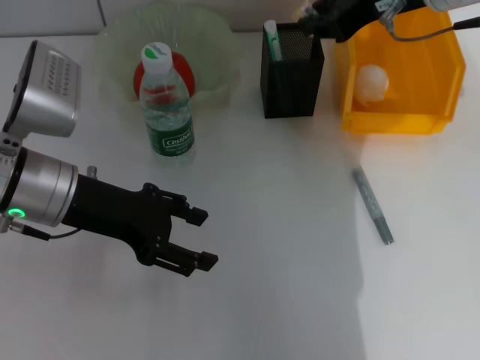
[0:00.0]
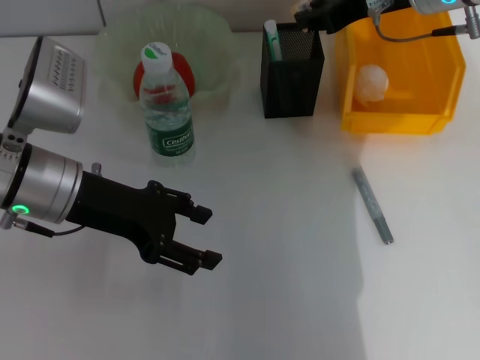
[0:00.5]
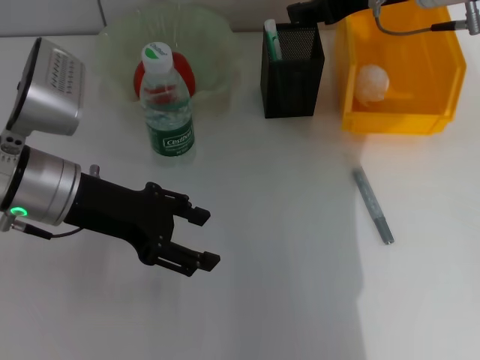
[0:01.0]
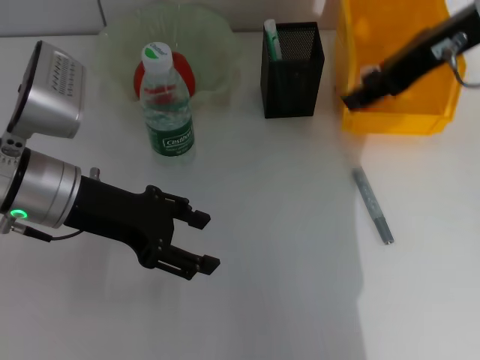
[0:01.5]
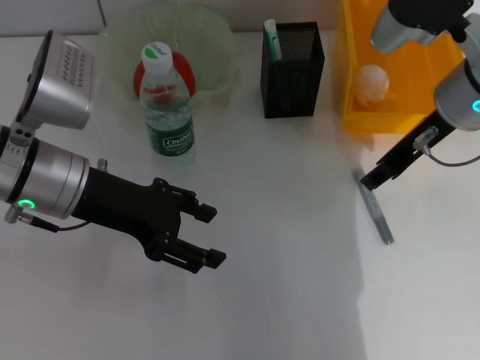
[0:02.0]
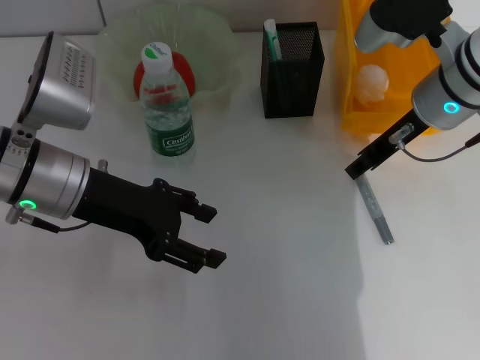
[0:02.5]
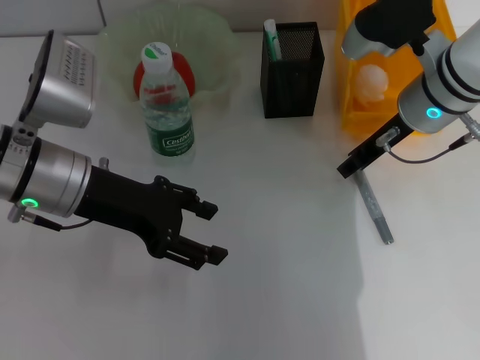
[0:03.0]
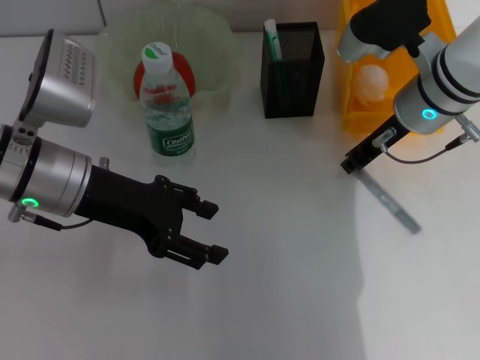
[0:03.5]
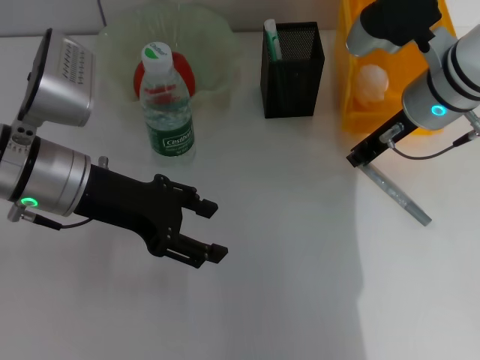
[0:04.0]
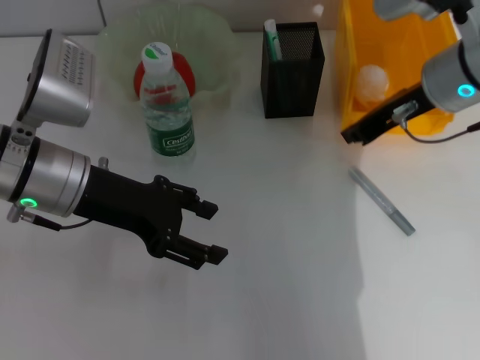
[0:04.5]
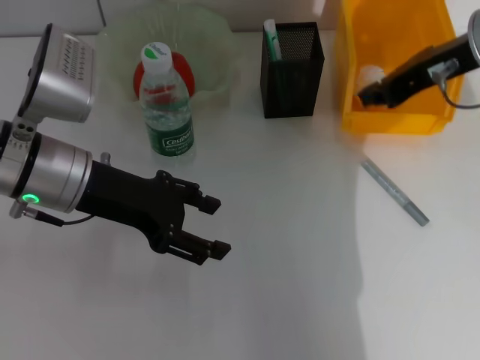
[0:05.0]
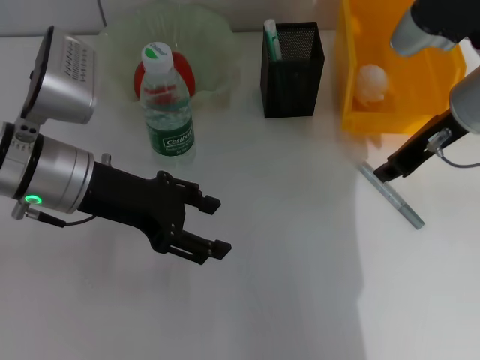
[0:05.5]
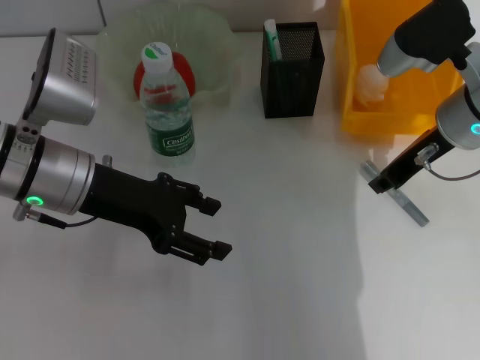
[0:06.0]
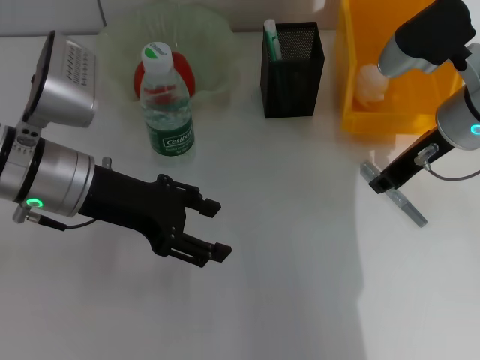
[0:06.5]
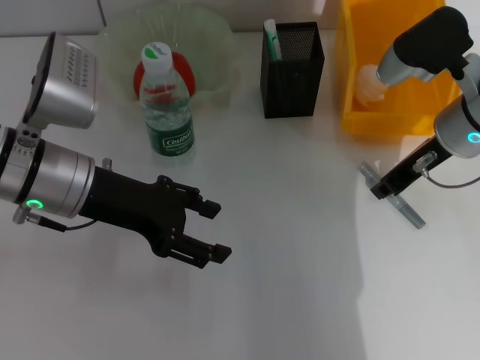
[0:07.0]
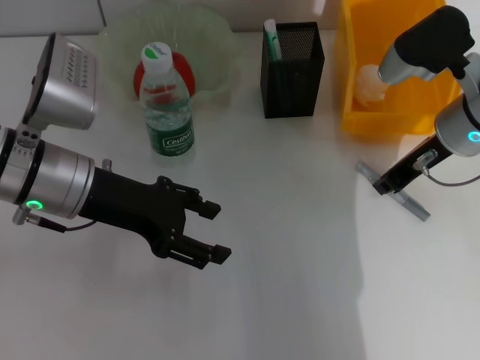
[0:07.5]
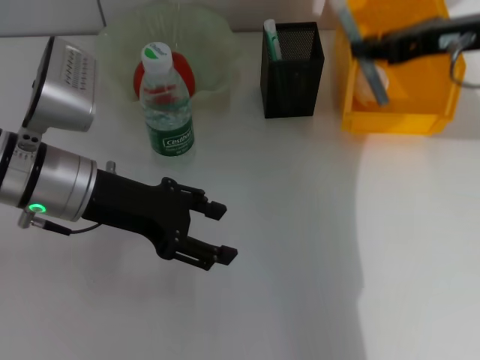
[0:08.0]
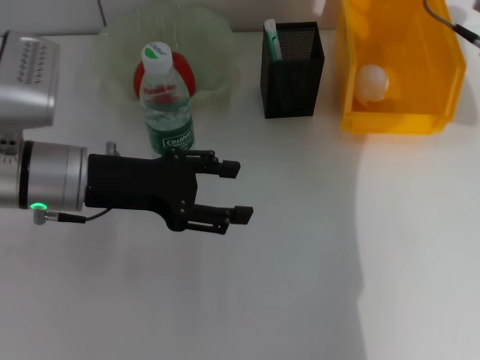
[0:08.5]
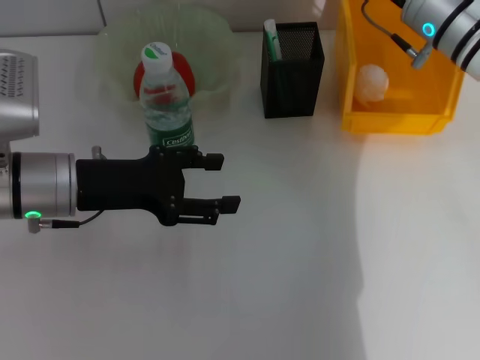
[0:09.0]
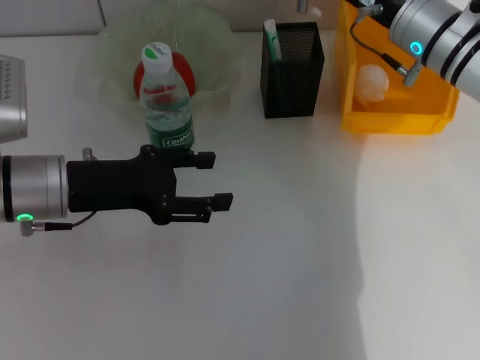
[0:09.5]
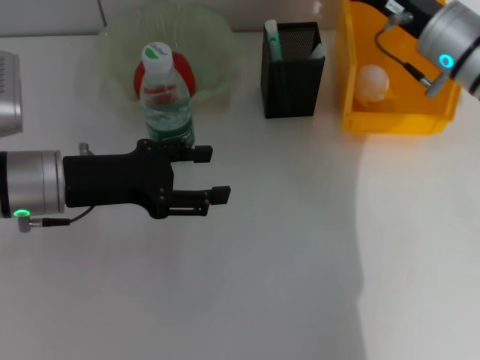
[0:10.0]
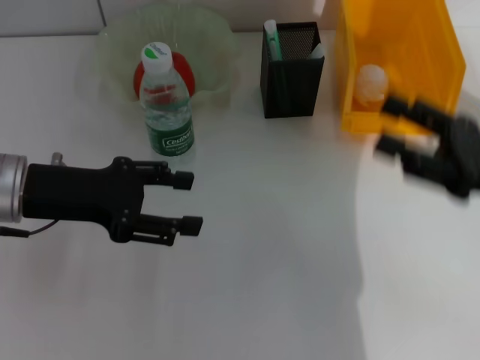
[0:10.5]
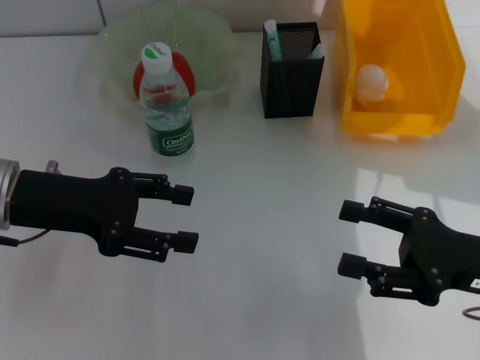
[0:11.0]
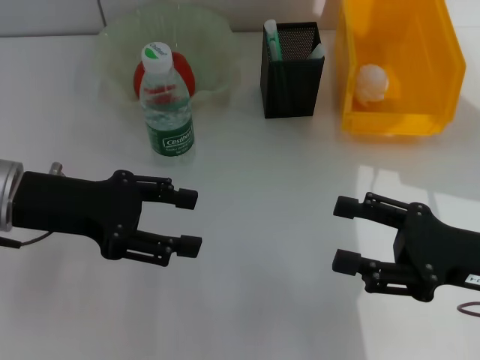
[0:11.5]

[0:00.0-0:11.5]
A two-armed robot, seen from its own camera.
Step, 0:01.0 to 0:07.0: Grab the gray glue with the right hand.
Step, 0:07.5 to 0:09.5: Place the gray glue into the pen holder with the right hand.
0:00.0 to 0:02.0: The right gripper heads downward, covering roughly 10 cm.
0:02.0 to 0:04.0: The right gripper closes up.
0:04.0 to 0:06.0: The right gripper goes upward and returns, approximately 10 cm each way.
0:06.0 to 0:07.5: The grippers stay close to where they were, moving slightly.
0:07.5 to 0:09.5: The right gripper moves some 10 cm upward and comes back.
0:09.5 to 0:11.5: The right gripper heads backward, covering approximately 20 cm, and opens up.

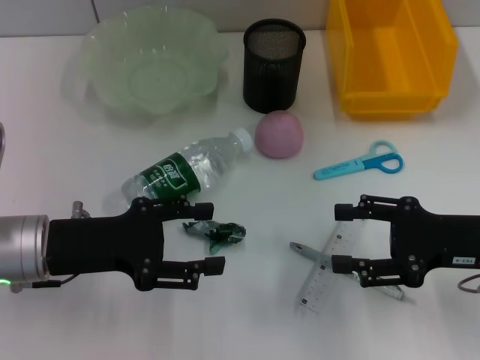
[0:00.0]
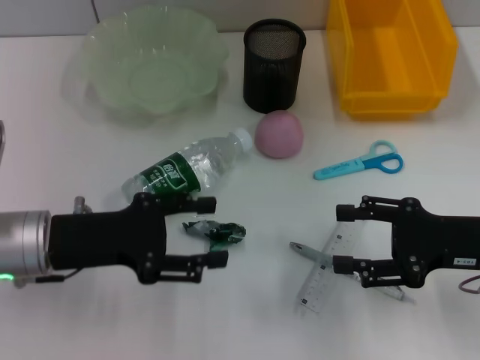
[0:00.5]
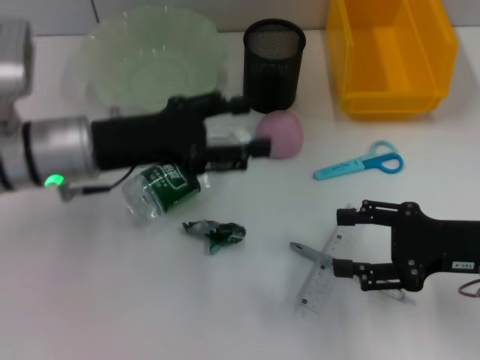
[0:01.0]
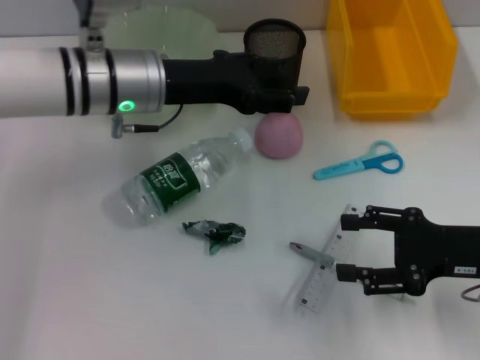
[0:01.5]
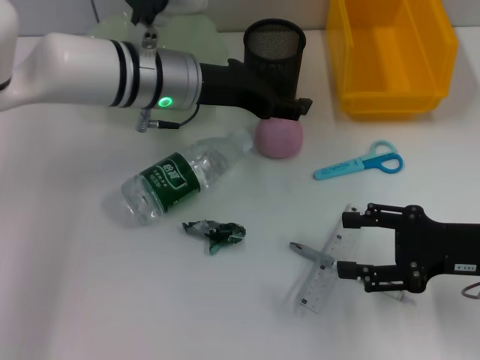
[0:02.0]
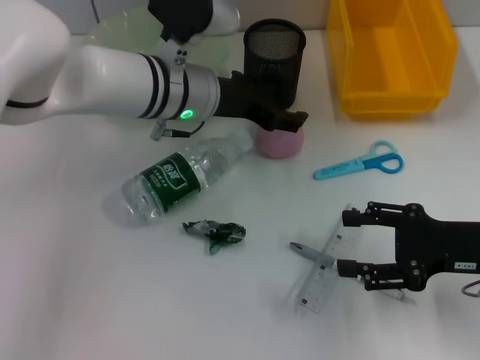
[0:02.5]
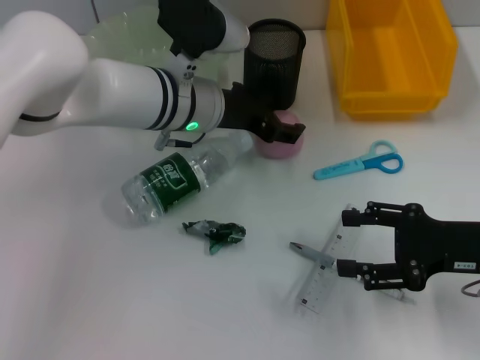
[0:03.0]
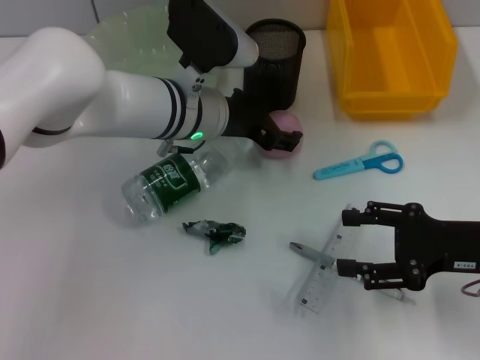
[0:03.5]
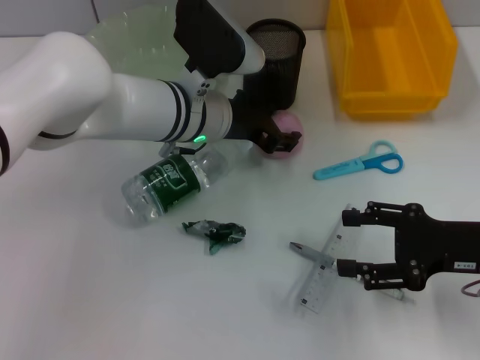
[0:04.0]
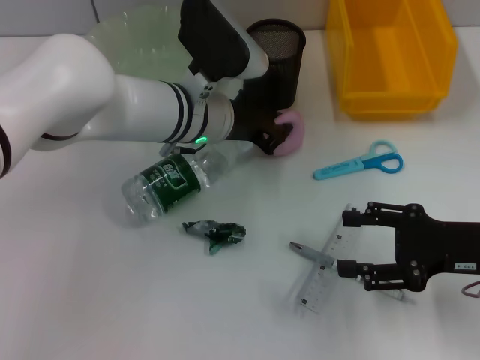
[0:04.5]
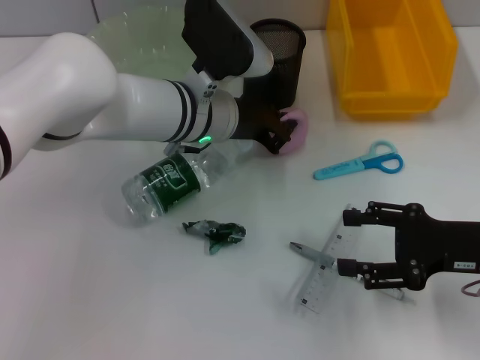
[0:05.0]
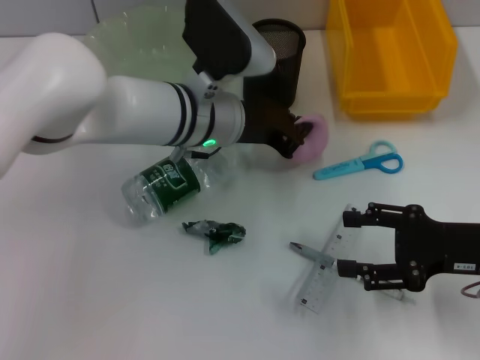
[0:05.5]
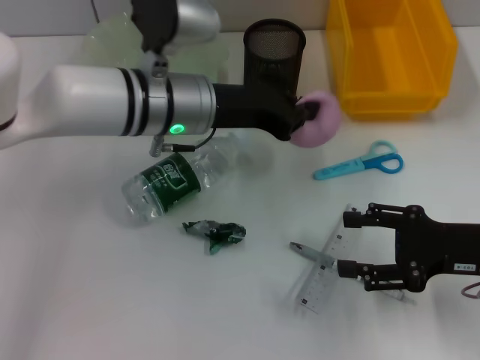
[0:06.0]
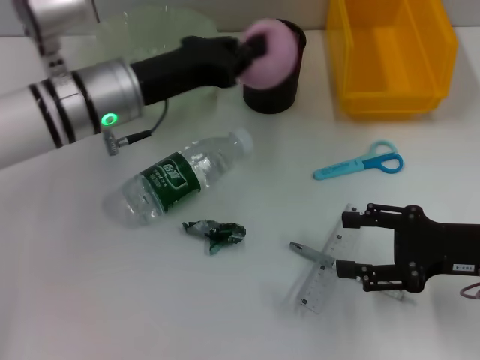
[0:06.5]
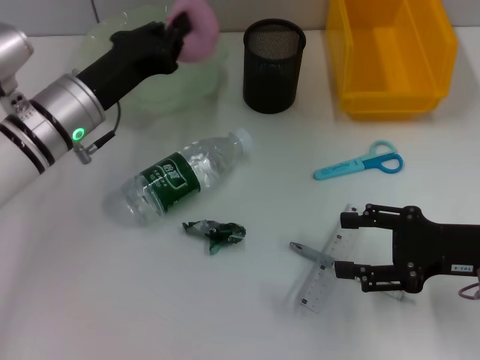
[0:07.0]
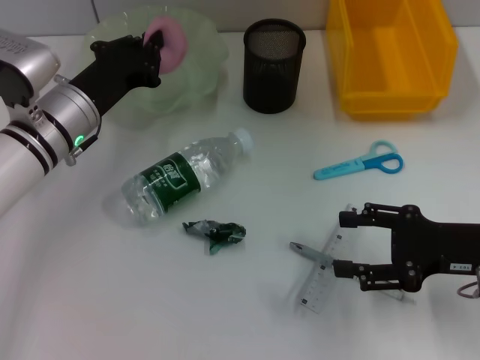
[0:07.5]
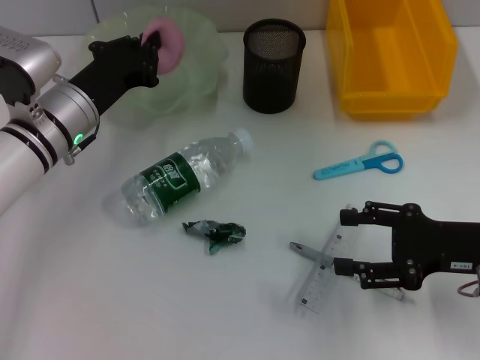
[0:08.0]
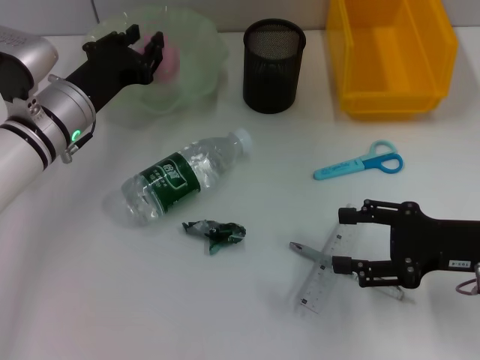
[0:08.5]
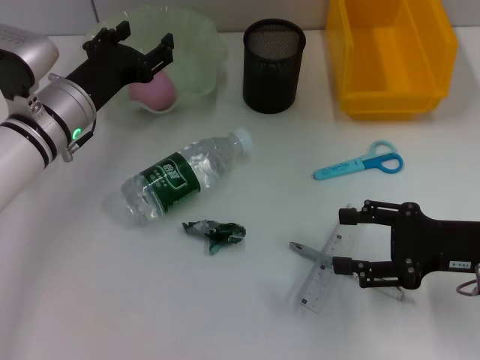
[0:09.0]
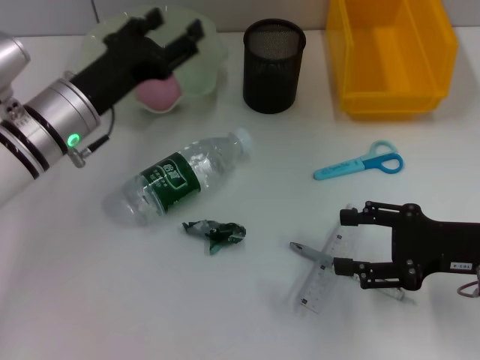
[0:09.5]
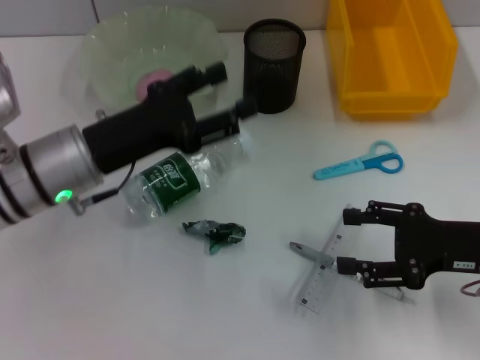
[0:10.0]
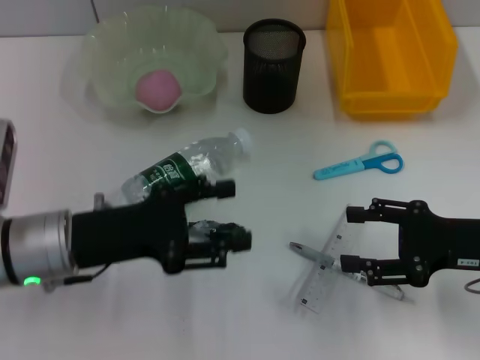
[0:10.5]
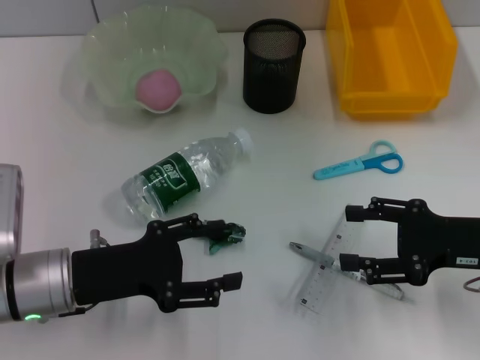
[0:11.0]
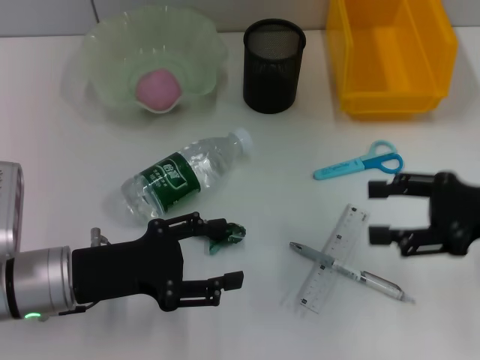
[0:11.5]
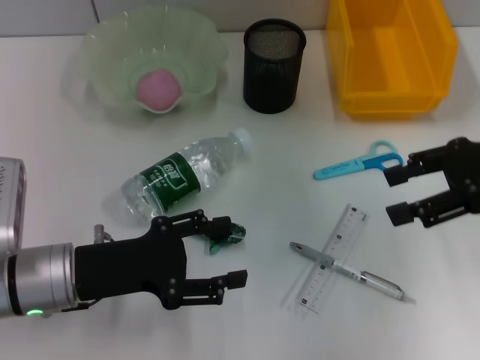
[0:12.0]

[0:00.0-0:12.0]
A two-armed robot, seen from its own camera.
Step, 0:00.0 to 0:04.5: Grab the peach with the left hand.
Step, 0:05.0 to 0:09.0: Place the peach into the fruit bowl with the left hand.
0:00.0 to 0:02.0: The left gripper goes about 20 cm forward and to the right.
0:02.0 to 0:04.0: The left gripper moves about 5 cm.
0:04.0 to 0:06.0: The left gripper closes up.
0:06.0 to 0:08.0: The left gripper goes some 10 cm to the left and downward.
0:08.0 to 0:10.0: The left gripper travels backward by about 5 cm, and opens its fingers.
0:10.0 to 0:12.0: The left gripper moves backward, approximately 5 cm. Meanwhile the right gripper travels upward and forward by some 15 cm.

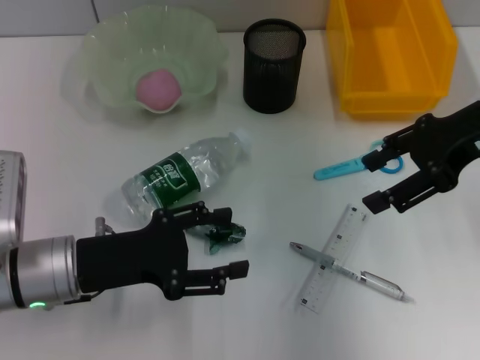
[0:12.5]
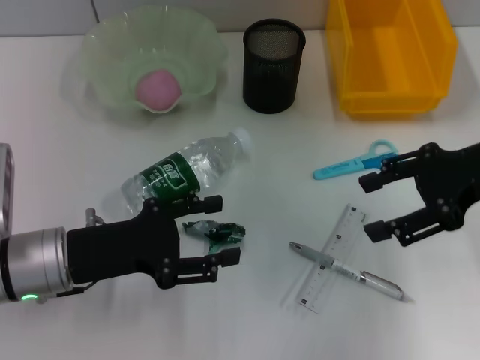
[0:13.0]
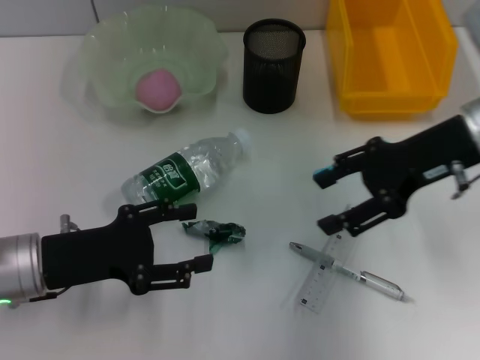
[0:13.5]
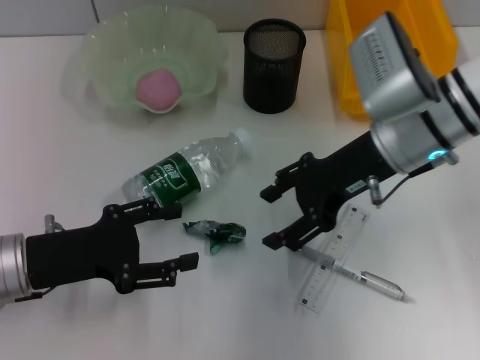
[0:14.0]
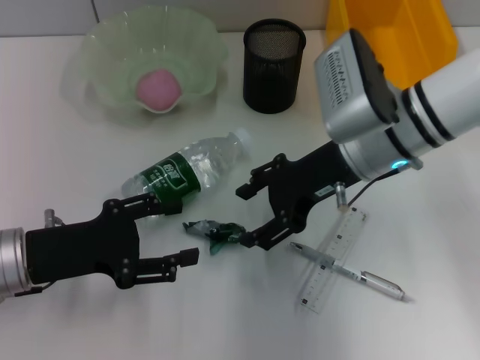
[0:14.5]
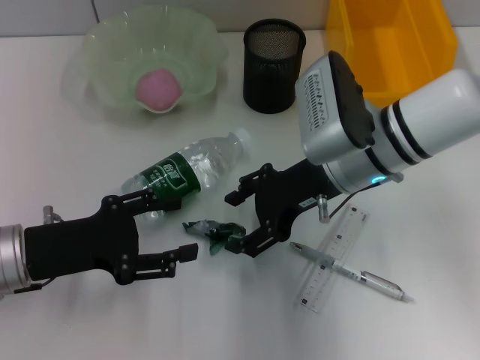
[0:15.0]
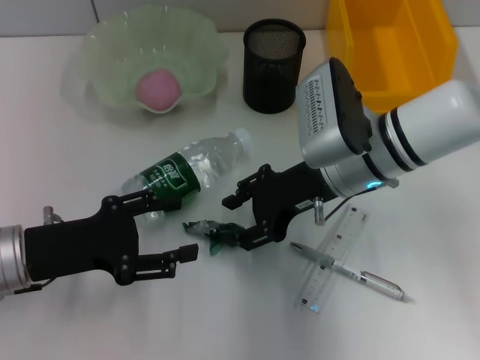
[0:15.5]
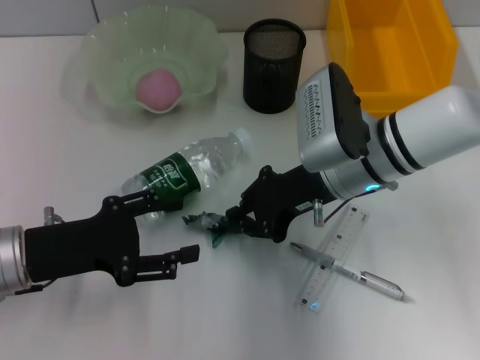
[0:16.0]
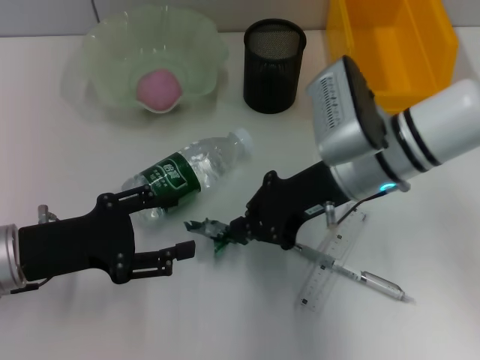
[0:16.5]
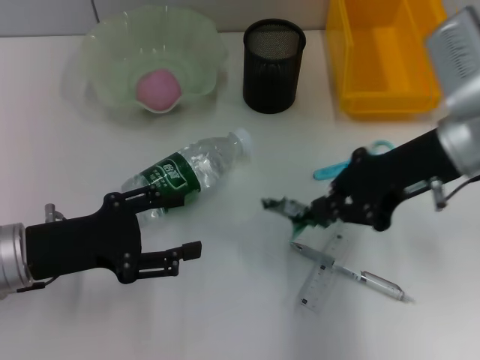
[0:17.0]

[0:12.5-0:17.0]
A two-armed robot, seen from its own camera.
Step, 0:12.5 to 0:16.0: Grab the plastic with the right hand.
0:12.5 to 0:14.5: The right gripper shifts some 15 cm to the left and downward.
0:14.5 to 0:17.0: The right gripper shifts approximately 10 cm to the right, and closes.
